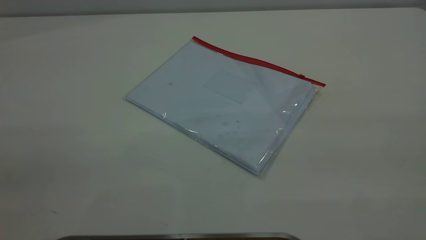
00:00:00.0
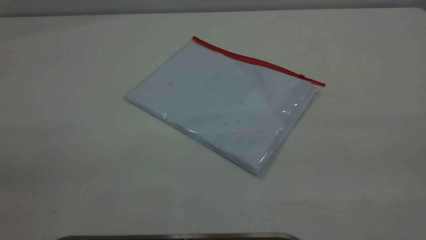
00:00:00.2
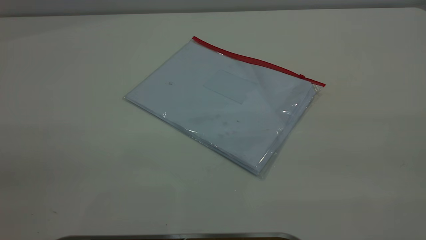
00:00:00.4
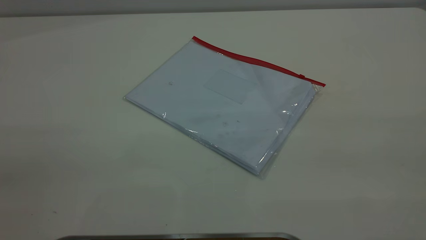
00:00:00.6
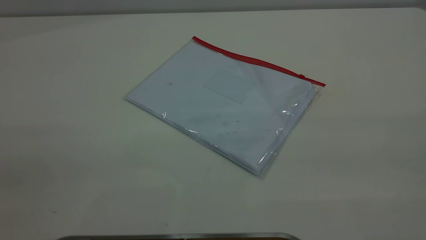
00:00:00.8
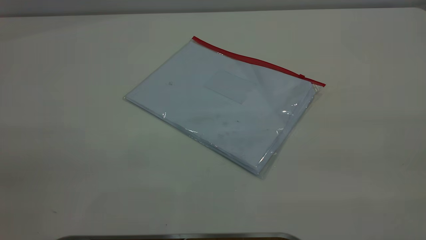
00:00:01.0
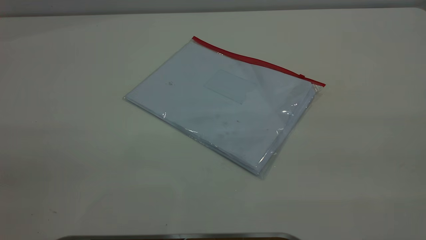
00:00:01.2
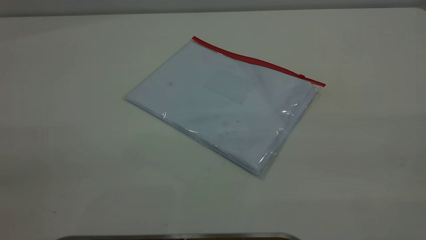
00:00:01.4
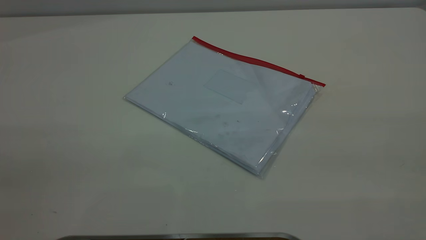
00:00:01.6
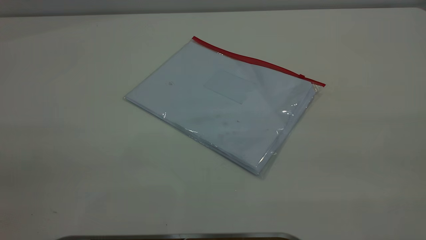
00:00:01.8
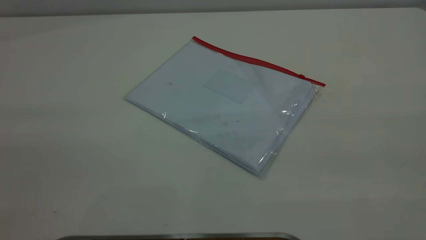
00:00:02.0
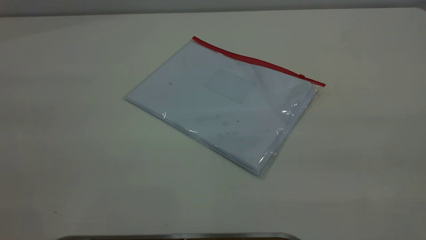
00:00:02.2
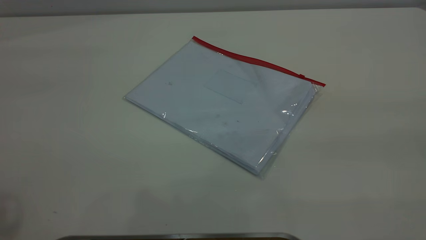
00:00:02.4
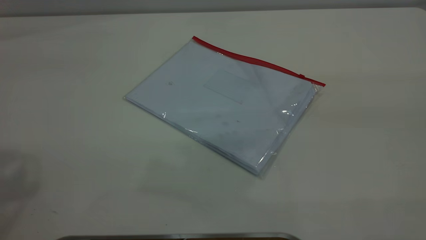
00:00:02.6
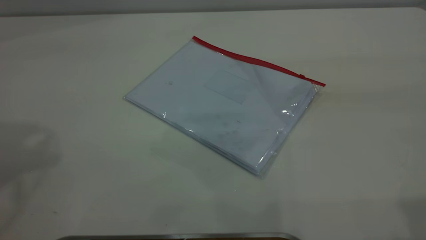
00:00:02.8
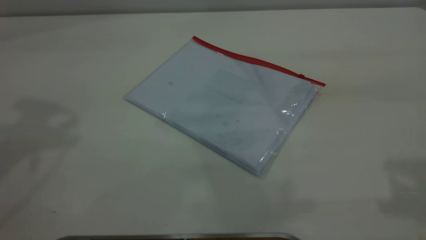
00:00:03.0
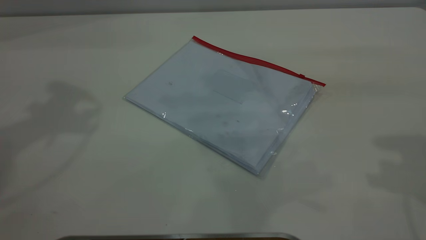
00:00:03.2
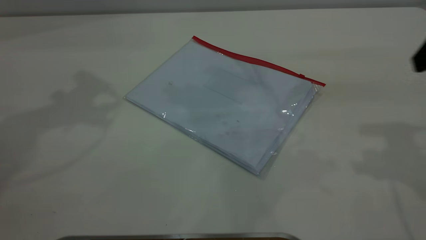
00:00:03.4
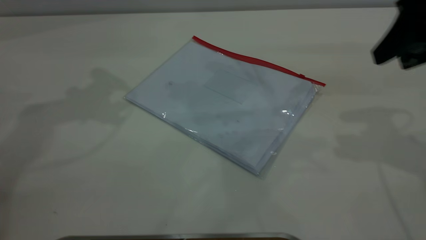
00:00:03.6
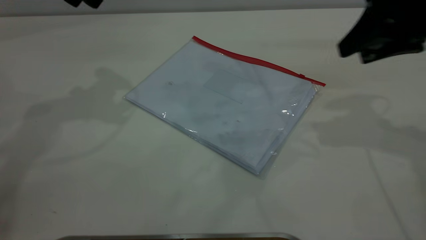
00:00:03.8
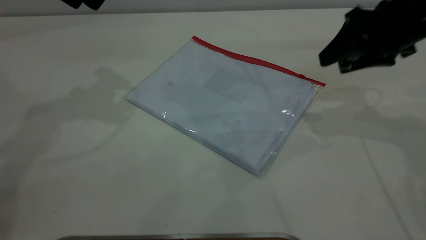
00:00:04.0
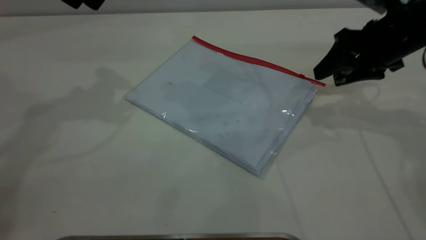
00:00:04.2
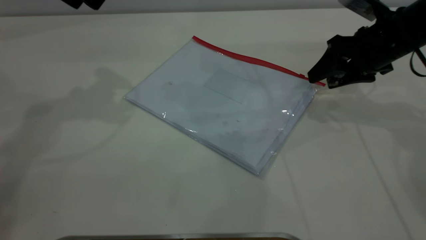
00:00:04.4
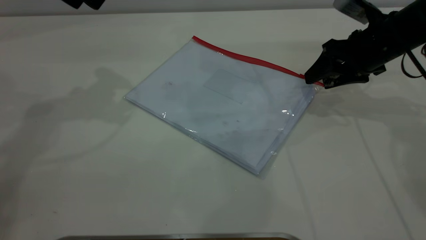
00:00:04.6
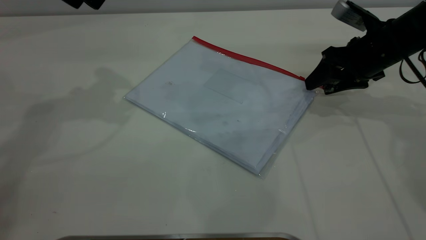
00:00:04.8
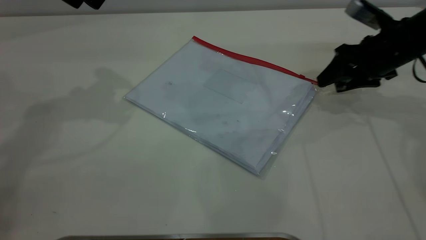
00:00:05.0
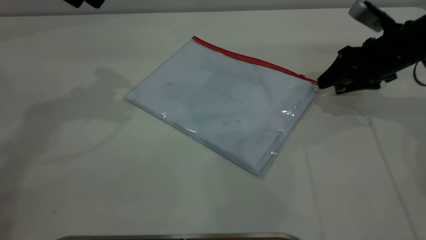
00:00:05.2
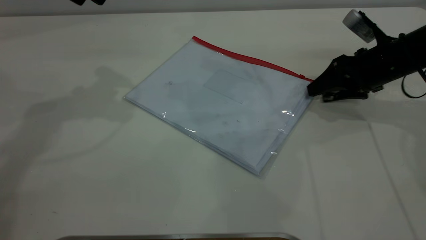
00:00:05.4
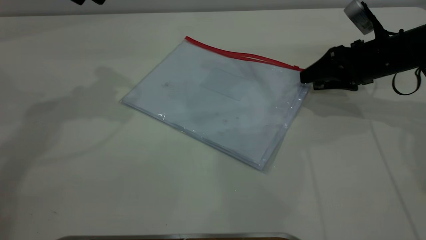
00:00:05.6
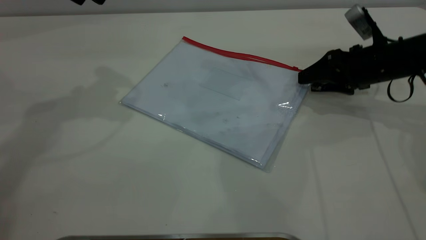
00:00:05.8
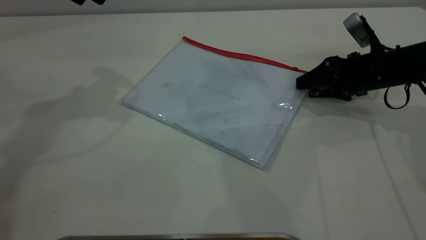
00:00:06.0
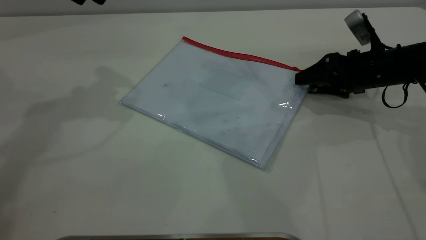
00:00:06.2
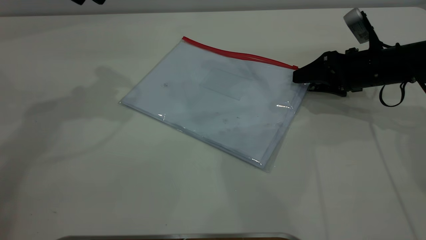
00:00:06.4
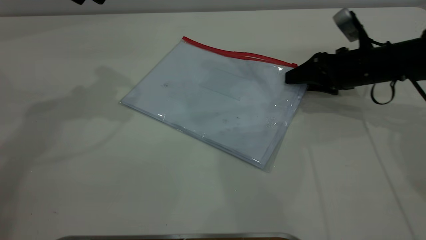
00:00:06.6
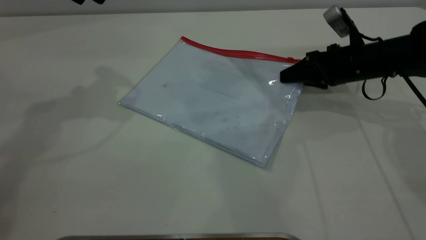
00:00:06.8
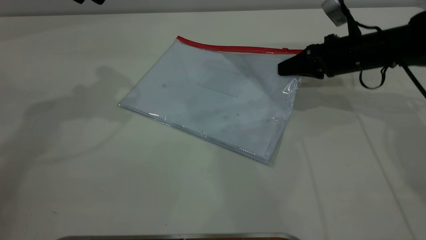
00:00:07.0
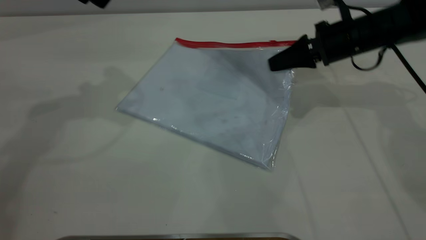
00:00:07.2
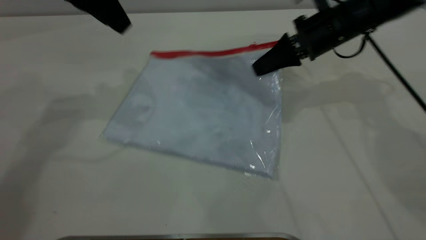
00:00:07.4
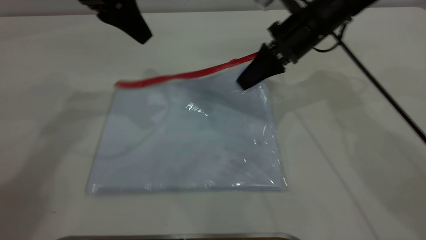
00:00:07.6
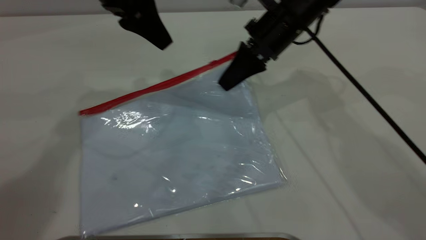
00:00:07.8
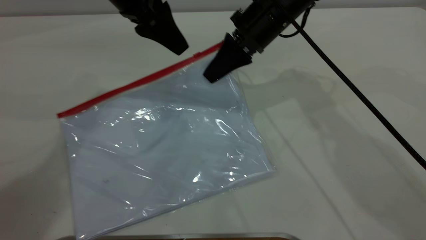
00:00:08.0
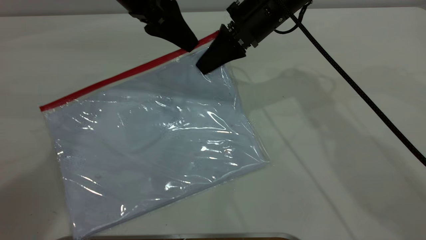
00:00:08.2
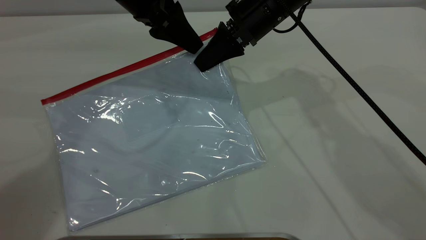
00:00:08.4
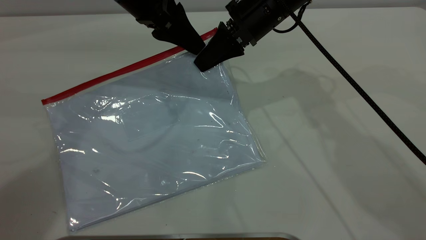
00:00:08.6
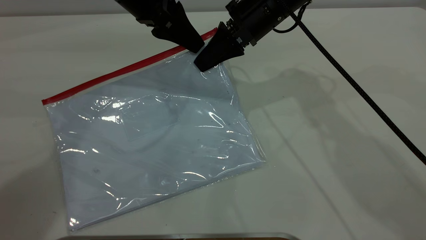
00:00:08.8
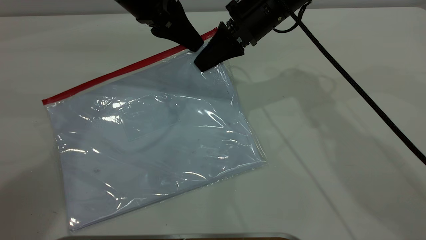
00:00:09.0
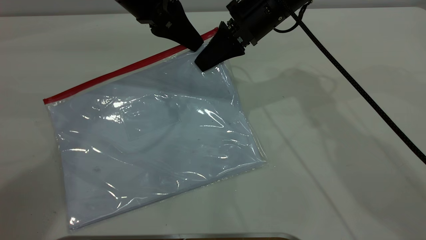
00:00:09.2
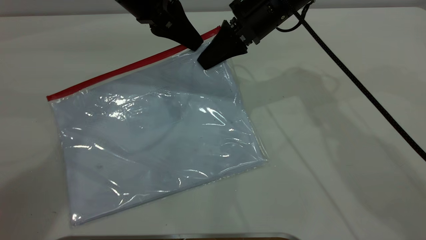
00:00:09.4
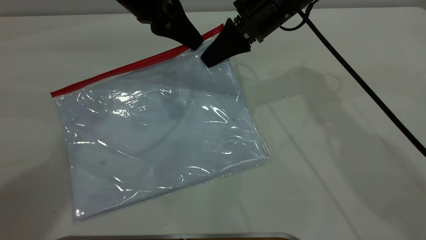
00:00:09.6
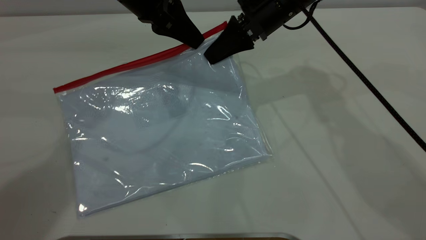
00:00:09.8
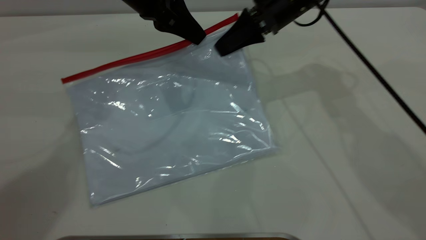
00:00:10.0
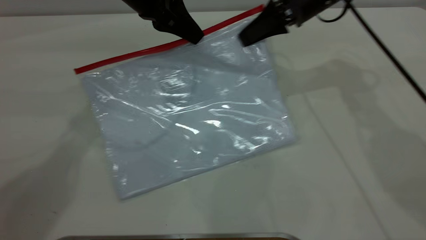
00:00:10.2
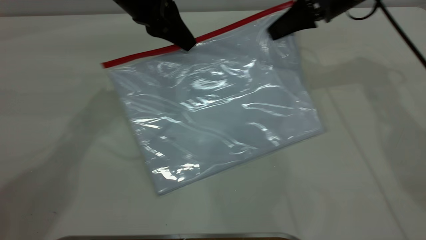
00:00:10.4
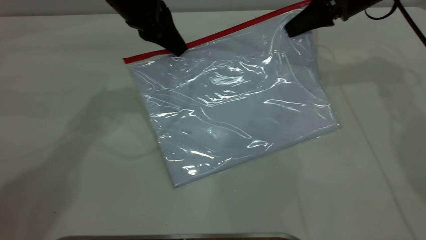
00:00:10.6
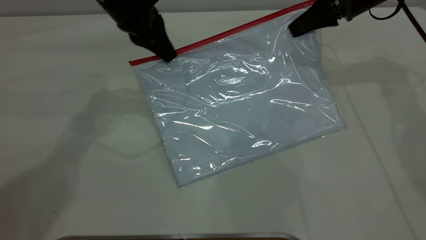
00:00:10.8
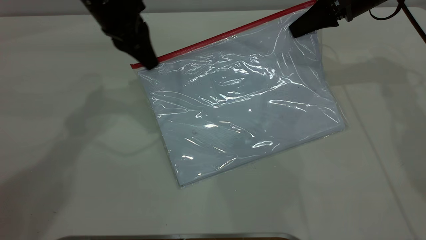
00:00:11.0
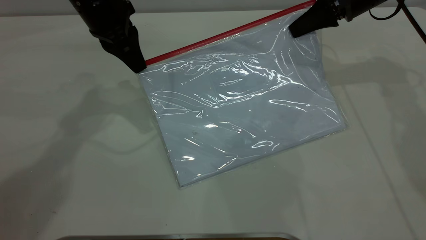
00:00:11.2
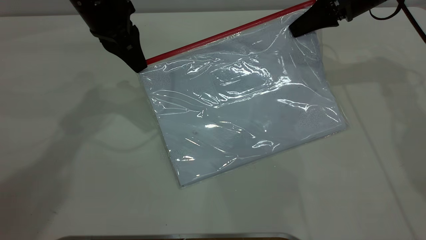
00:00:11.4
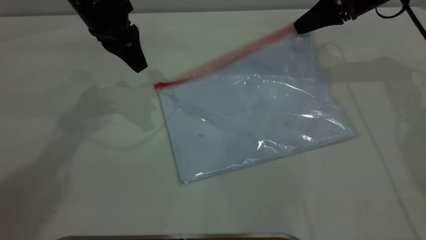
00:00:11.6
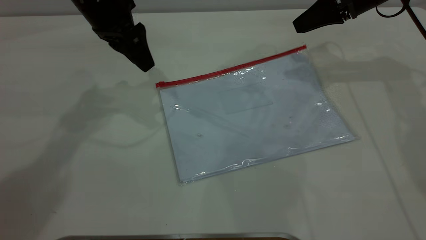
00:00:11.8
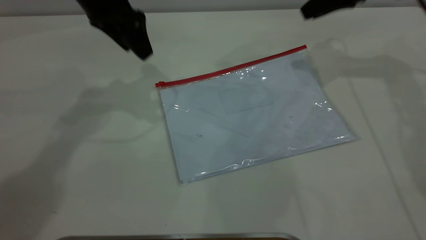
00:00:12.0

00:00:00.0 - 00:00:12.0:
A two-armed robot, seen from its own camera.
Step, 00:00:00.0 - 00:00:07.0: Pick up the transparent plastic bag with the right gripper.
Step, 00:00:07.2 - 00:00:11.4: Pulling up the zipper on the transparent plastic bag with the left gripper to close it.
00:00:00.0 - 00:00:01.6: Both grippers stay about where they are.
00:00:03.0 - 00:00:04.4: The right gripper heads downward and forward, covering some 30 cm.
00:00:04.4 - 00:00:06.0: The right gripper travels downward by roughly 5 cm.
00:00:06.0 - 00:00:07.6: The left gripper heads to the right and downward, covering approximately 10 cm; the right gripper is displaced to the left and upward by some 15 cm, and closes its fingers.
00:00:07.6 - 00:00:09.0: The right gripper moves to the left, some 5 cm. Meanwhile the left gripper ends up roughly 5 cm from where it was, and closes its fingers.
00:00:09.0 - 00:00:10.4: The right gripper goes about 15 cm to the right. Meanwhile the left gripper closes up.
00:00:10.4 - 00:00:12.0: The right gripper shifts by approximately 5 cm, and opens up. Meanwhile the left gripper opens its fingers.

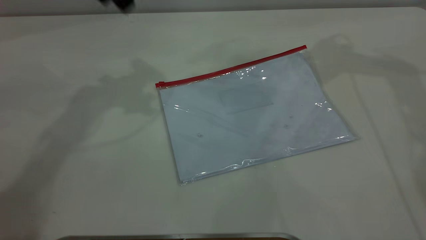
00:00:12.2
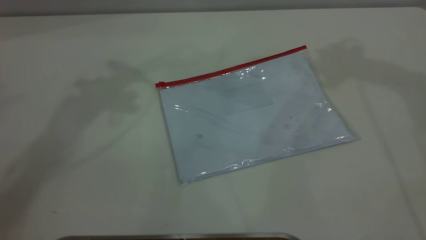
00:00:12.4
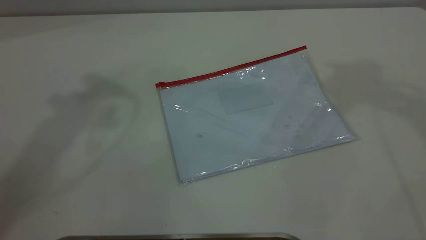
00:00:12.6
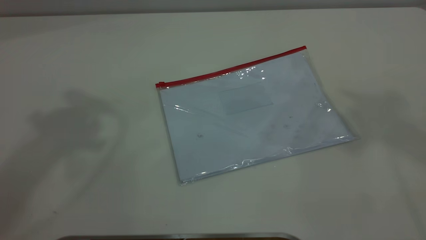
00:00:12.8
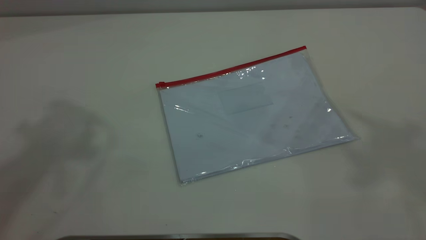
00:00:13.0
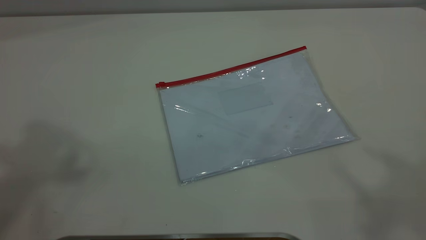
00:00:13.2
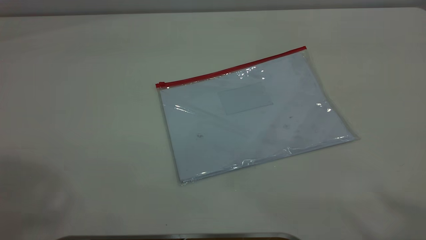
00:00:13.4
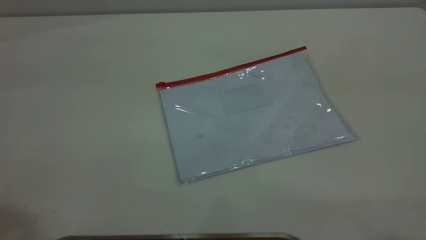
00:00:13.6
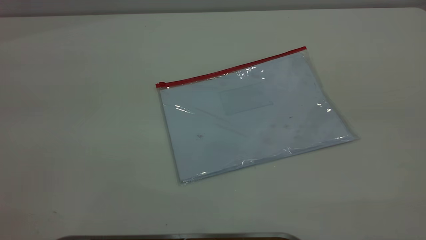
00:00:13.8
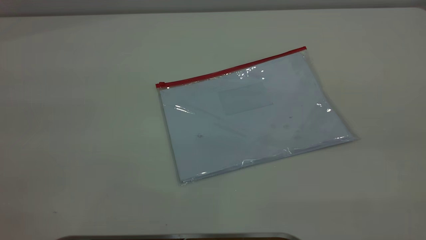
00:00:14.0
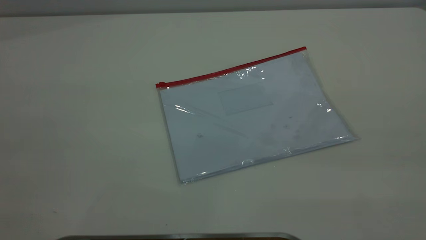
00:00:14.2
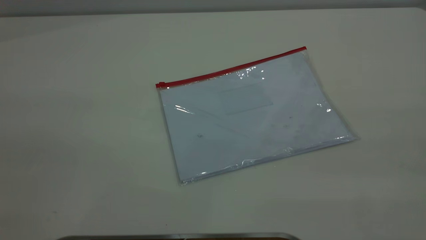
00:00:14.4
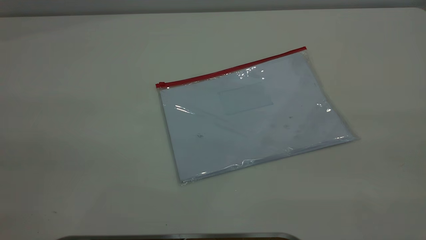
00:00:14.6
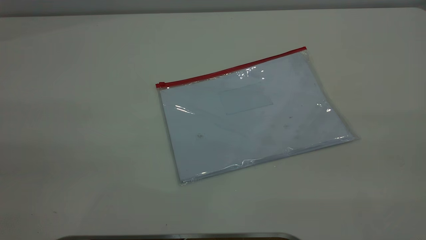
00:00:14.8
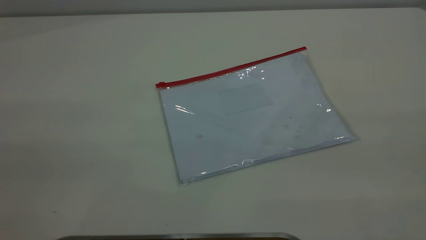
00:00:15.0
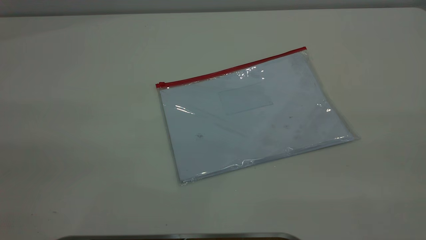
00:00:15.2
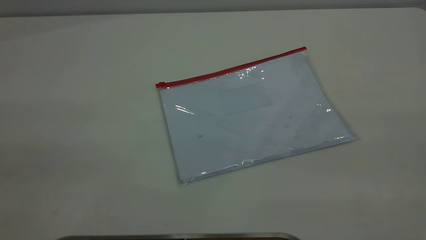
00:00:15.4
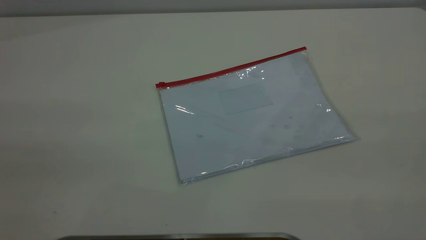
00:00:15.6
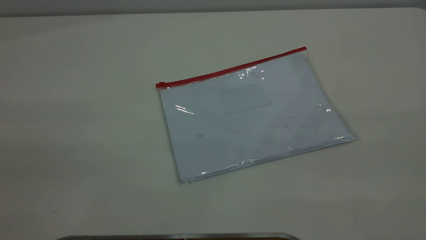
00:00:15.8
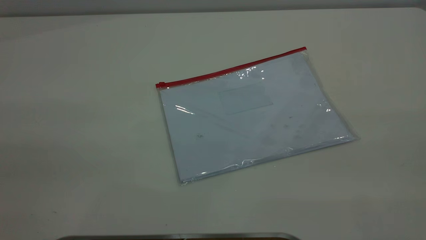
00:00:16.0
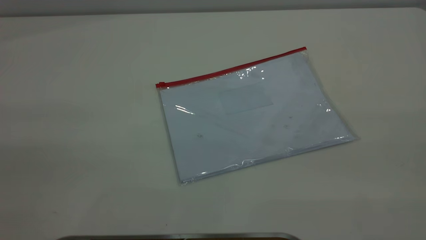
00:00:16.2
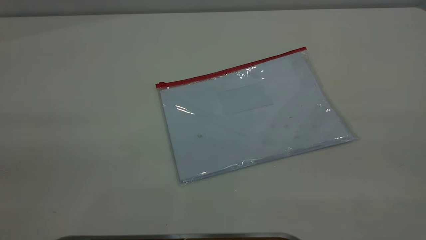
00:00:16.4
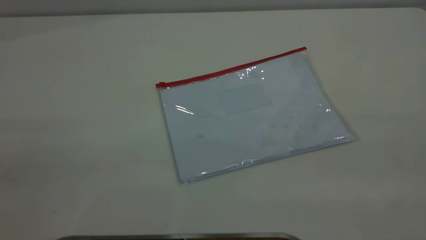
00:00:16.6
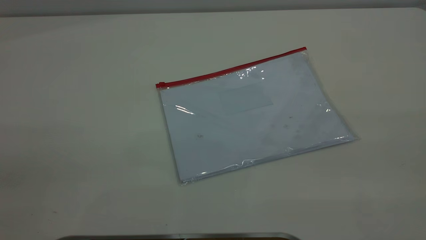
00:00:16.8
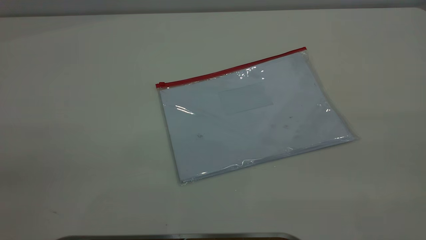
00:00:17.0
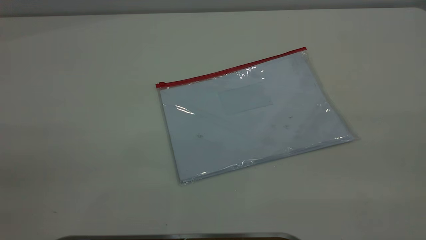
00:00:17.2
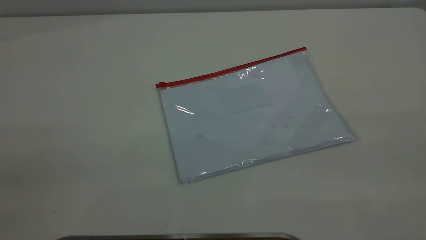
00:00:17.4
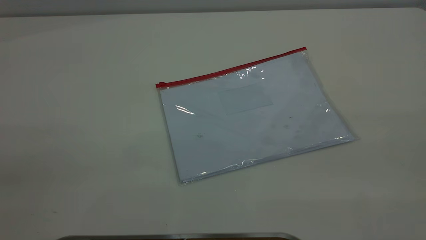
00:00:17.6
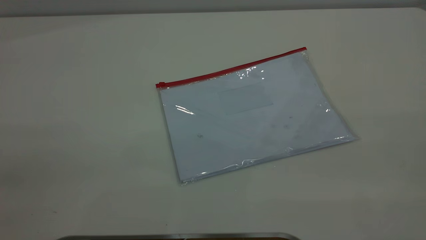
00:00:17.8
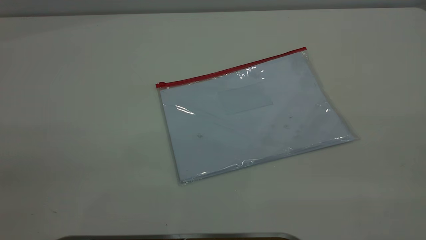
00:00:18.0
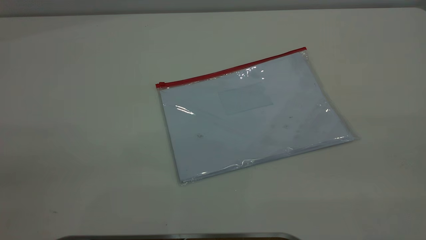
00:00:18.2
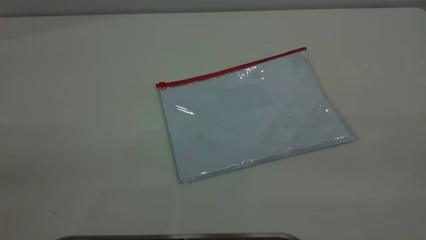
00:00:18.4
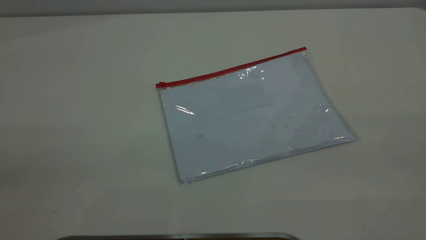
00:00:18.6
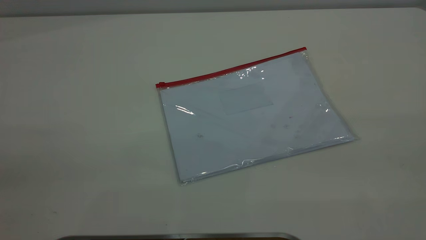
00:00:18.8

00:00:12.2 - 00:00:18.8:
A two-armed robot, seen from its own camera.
00:00:17.2 - 00:00:18.8: Both grippers stay about where they are.
